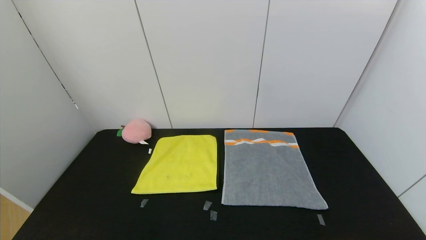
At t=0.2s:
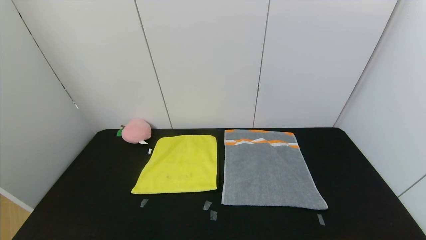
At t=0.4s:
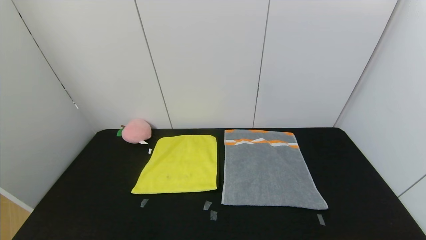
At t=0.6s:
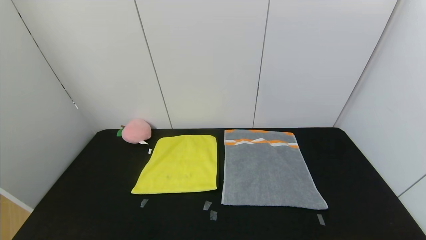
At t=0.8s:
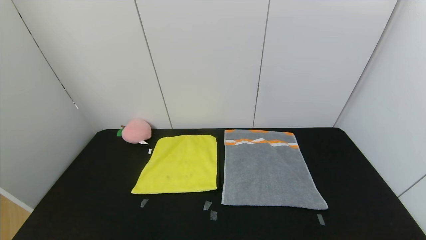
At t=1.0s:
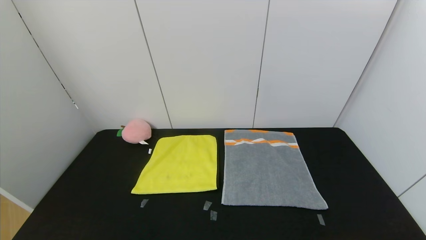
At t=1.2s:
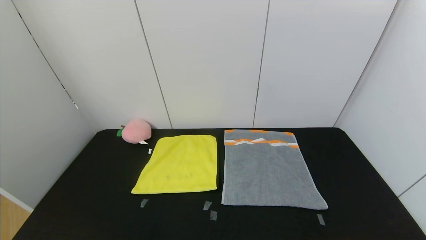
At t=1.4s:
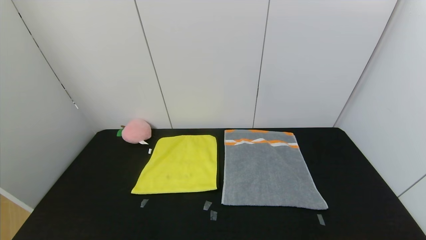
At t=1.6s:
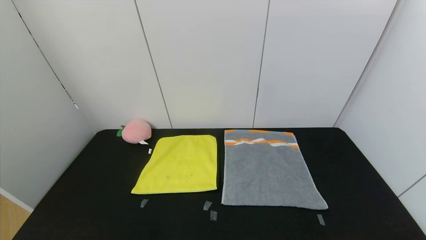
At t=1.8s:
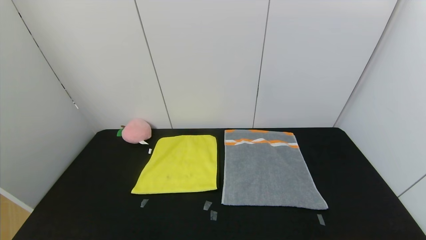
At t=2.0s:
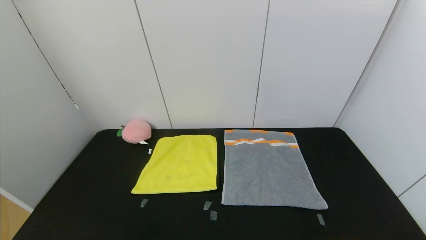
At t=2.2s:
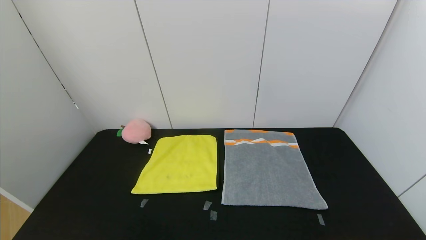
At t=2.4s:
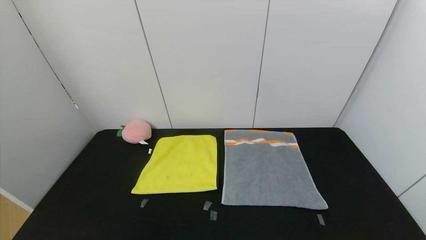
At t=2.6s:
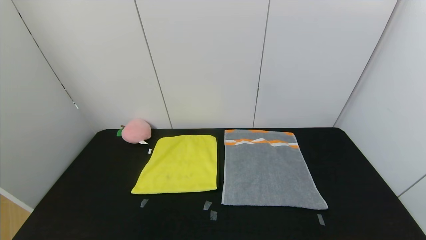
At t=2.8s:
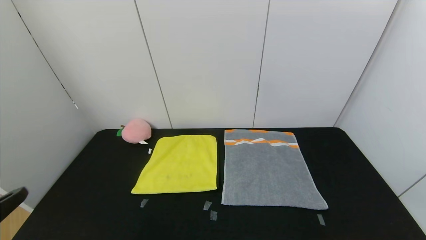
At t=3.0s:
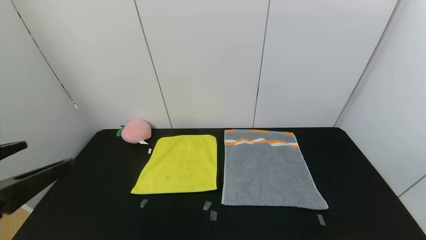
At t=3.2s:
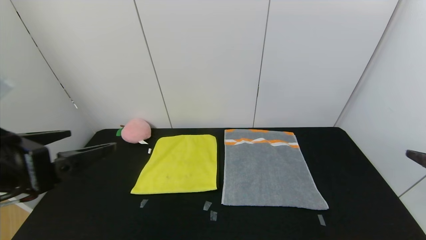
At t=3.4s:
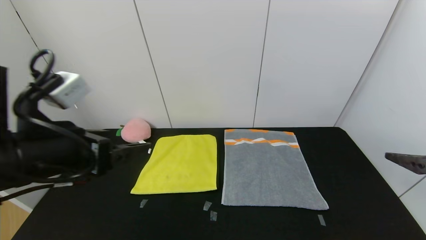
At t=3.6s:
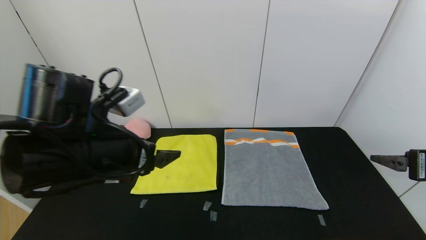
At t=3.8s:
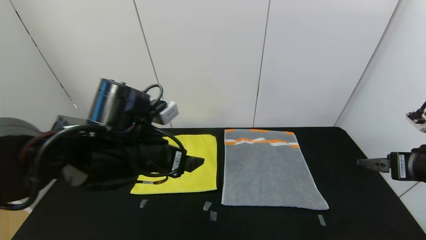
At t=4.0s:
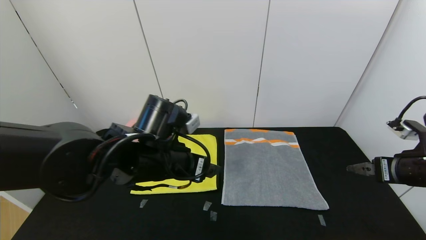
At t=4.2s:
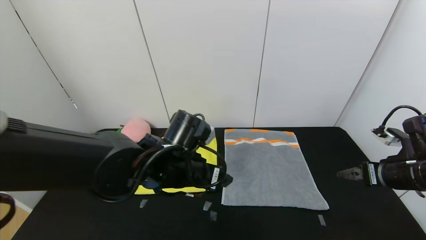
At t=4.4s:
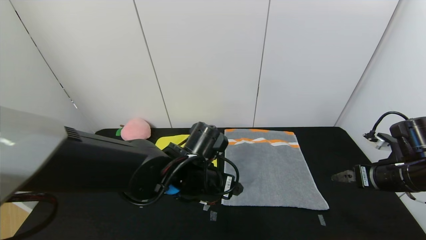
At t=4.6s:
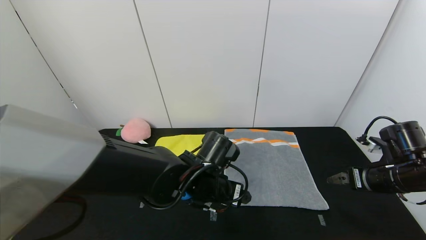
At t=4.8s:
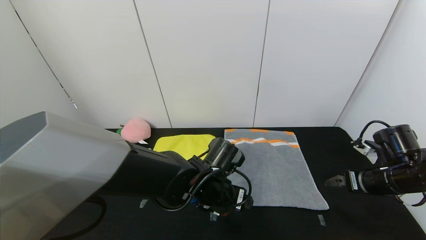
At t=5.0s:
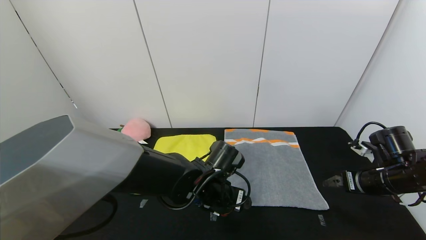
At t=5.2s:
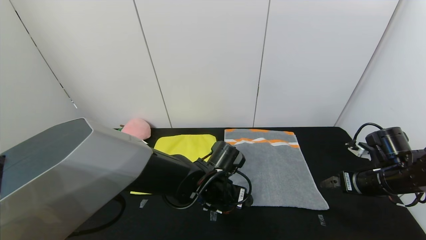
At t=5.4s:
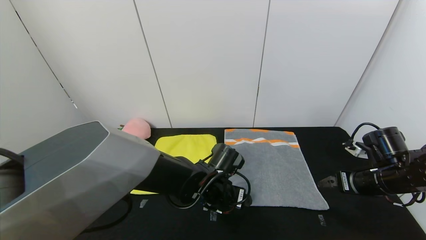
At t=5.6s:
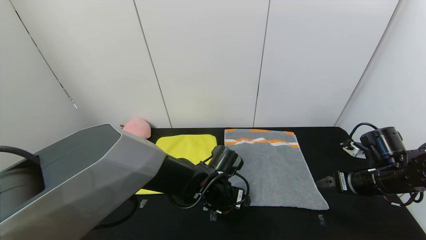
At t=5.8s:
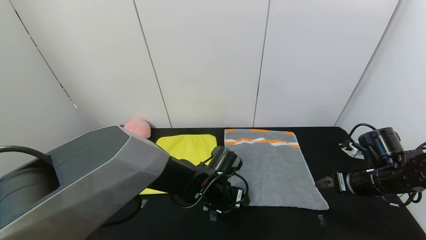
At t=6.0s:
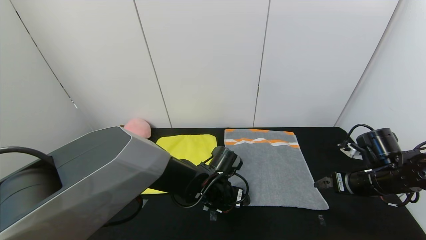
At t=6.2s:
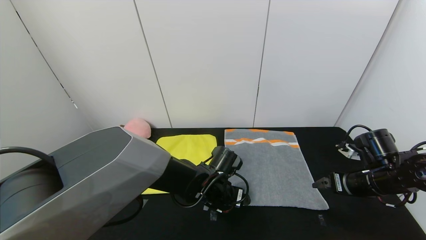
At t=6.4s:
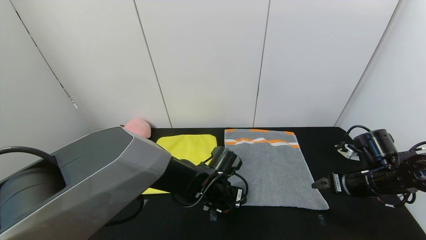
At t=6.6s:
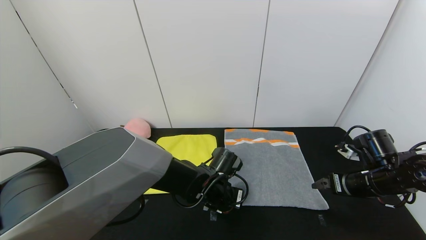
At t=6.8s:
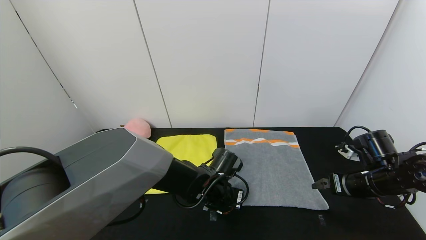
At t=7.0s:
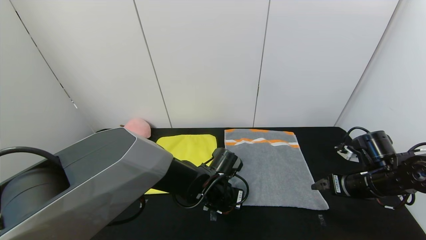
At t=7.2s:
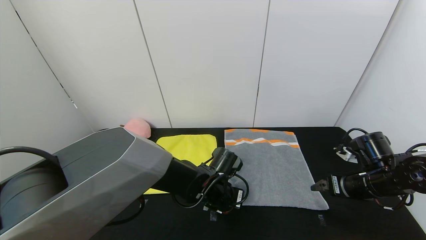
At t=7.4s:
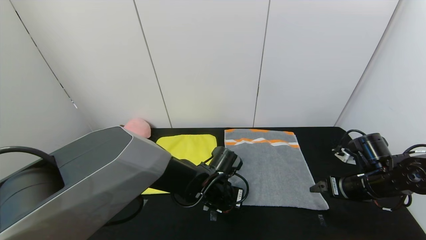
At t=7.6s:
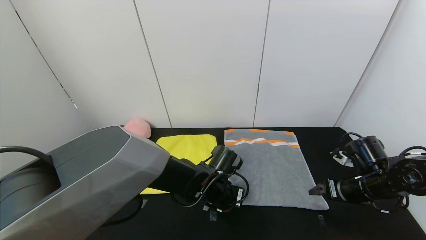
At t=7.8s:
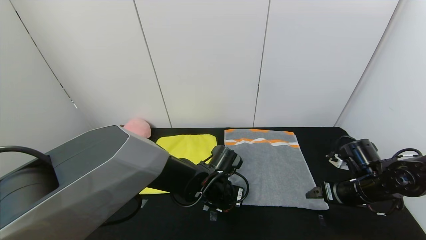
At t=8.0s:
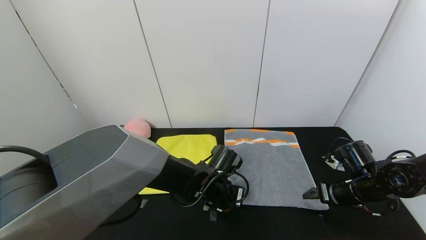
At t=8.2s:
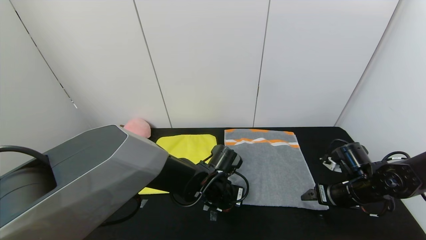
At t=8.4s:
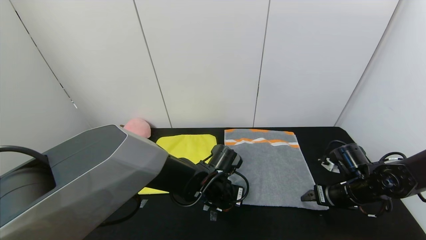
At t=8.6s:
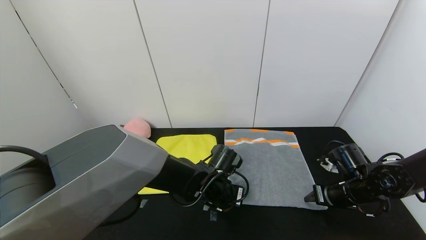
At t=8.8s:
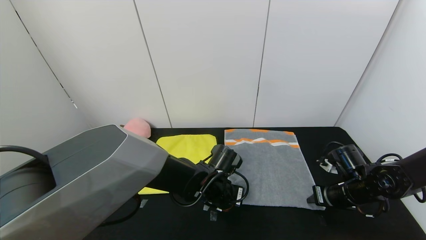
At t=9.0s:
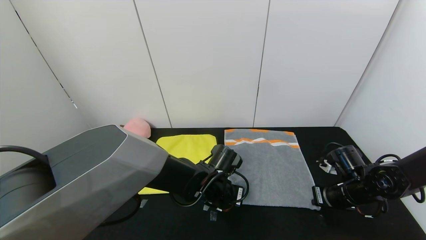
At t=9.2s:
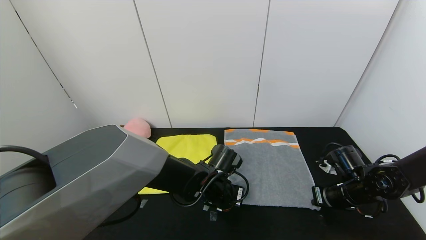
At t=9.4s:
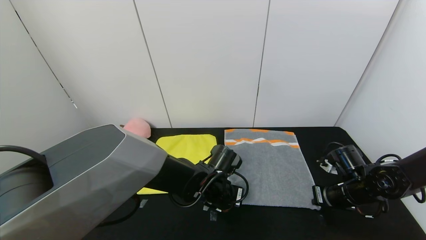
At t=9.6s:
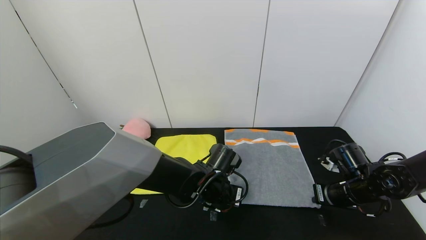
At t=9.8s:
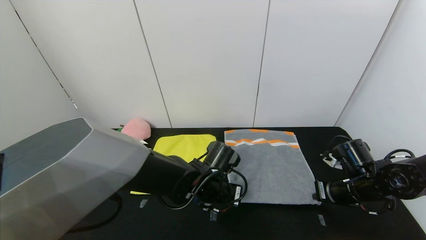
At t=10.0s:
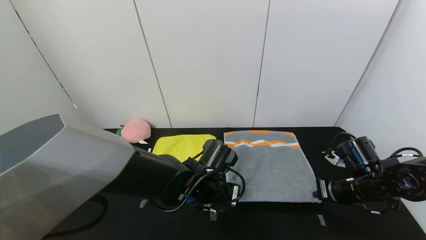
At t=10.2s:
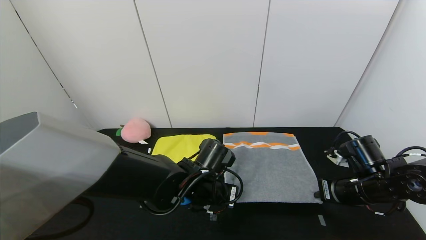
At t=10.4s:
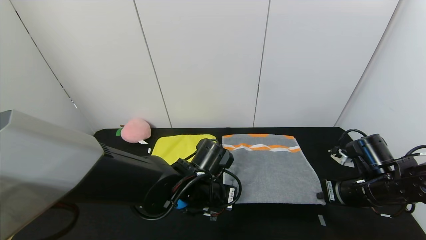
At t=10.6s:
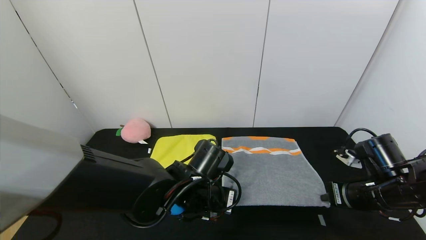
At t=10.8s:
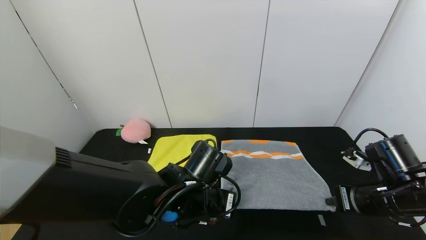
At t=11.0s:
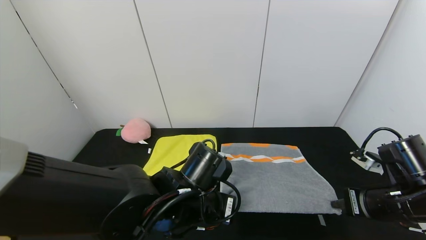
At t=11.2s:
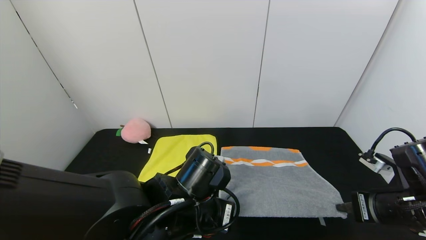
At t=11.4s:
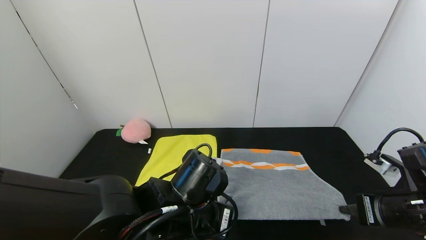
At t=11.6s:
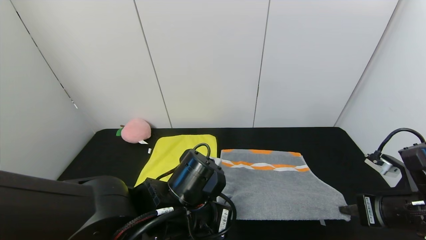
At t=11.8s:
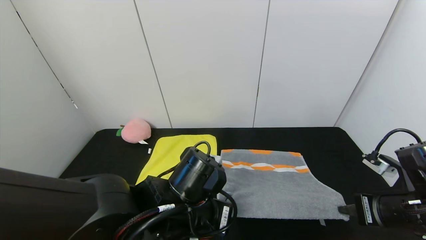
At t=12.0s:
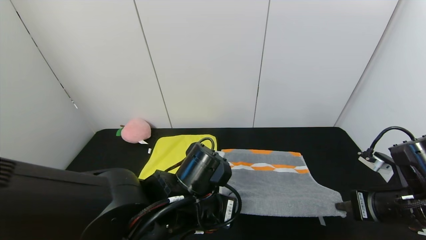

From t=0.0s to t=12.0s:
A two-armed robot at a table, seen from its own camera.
Task of the whole recording: Use the gripper to fold the yellow towel and grey towel in half twice,then put the yellow towel on the grey towel.
From t=0.0s to t=1.6s: Both grippers stay put.
From t=1.6s to t=3.0s: The left gripper travels upward and forward by some 20 cm.
From t=3.0s to t=4.4s: The right gripper is displaced forward and downward by roughly 20 cm, while the left gripper moves to the right, forward and downward, approximately 30 cm.
From t=4.4s to t=6.0s: The left gripper moves downward, approximately 10 cm. Meanwhile the right gripper ends up approximately 5 cm from where it was.
From t=6.0s to t=7.6s: The left gripper closes up.
From t=7.6s to t=9.0s: The right gripper closes up.
From t=9.0s to t=10.4s: The left gripper heads upward and backward, covering approximately 5 cm. The right gripper is displaced upward by about 5 cm.
From t=10.4s to t=12.0s: Both grippers move backward, roughly 5 cm.

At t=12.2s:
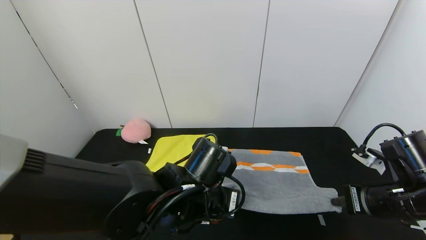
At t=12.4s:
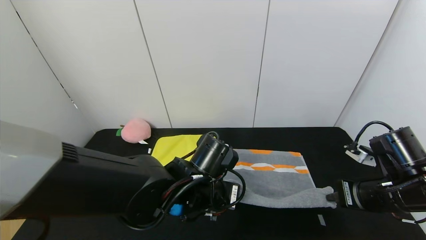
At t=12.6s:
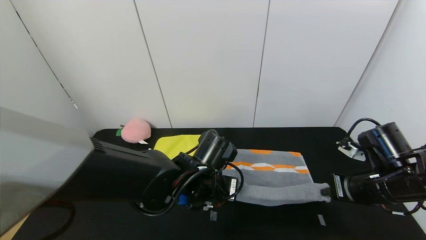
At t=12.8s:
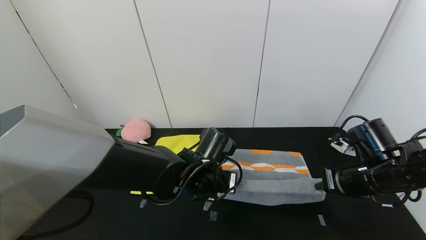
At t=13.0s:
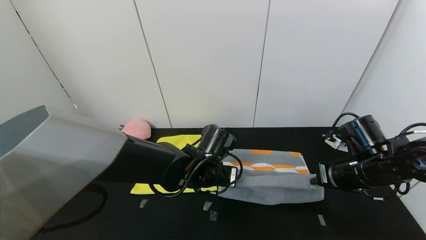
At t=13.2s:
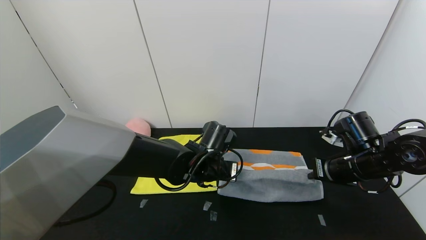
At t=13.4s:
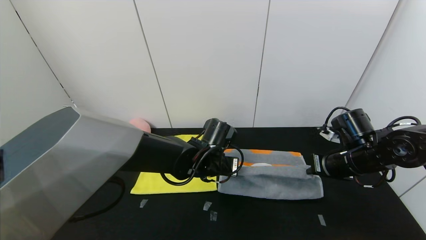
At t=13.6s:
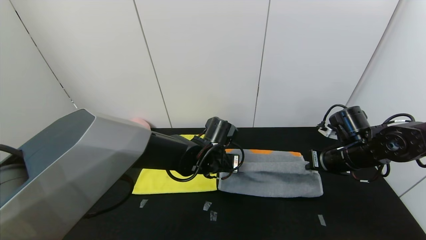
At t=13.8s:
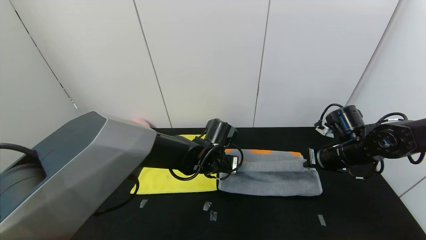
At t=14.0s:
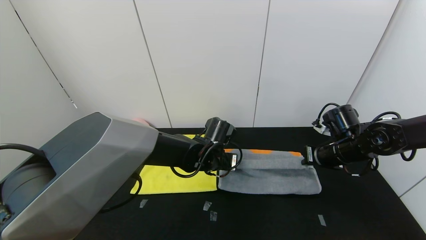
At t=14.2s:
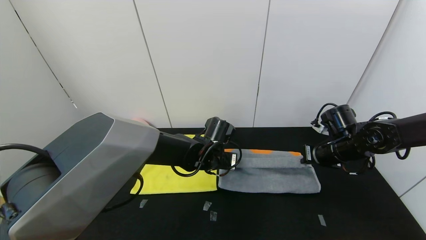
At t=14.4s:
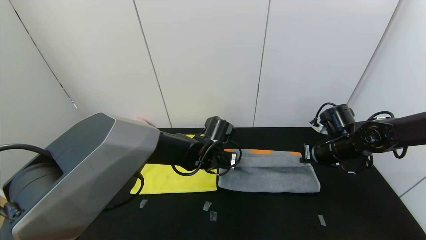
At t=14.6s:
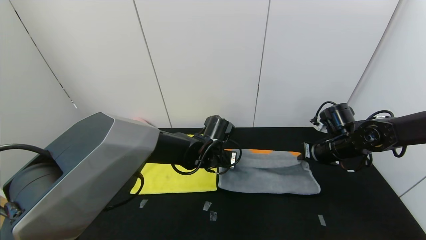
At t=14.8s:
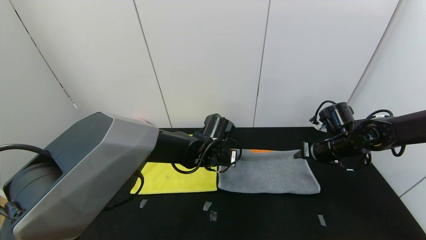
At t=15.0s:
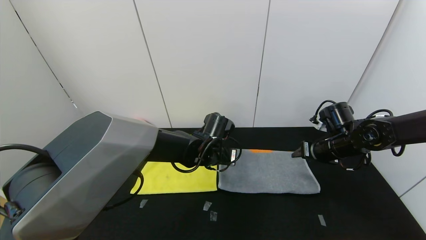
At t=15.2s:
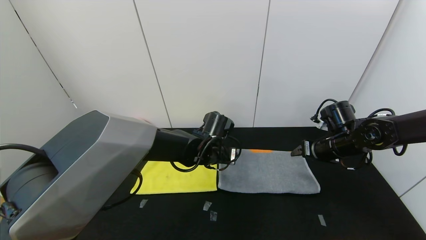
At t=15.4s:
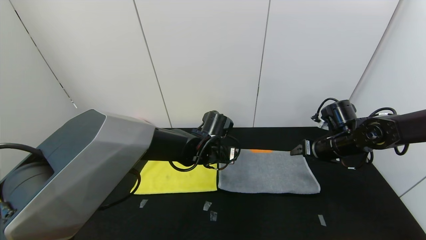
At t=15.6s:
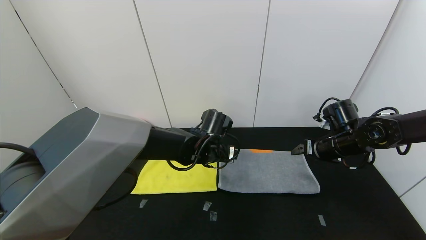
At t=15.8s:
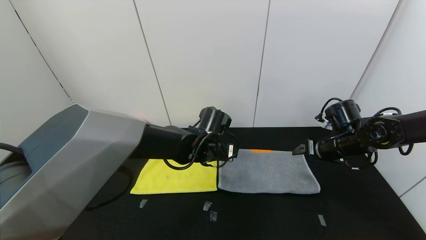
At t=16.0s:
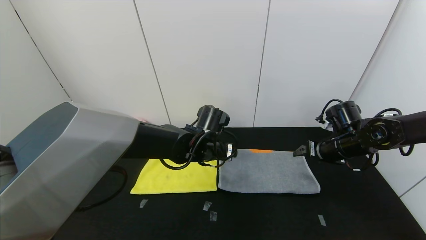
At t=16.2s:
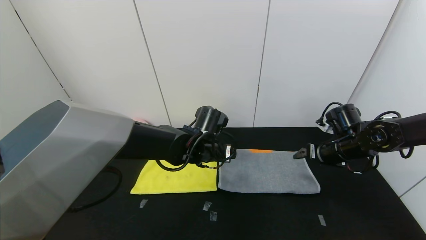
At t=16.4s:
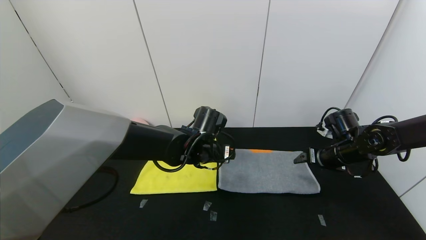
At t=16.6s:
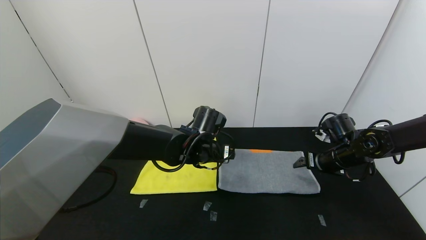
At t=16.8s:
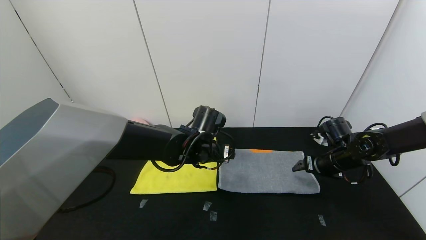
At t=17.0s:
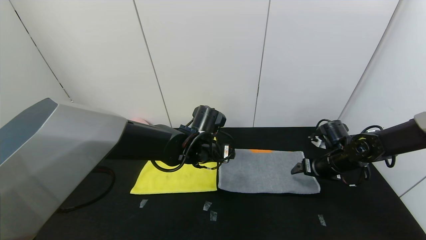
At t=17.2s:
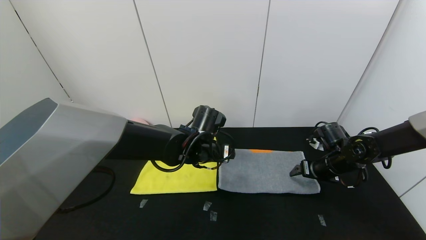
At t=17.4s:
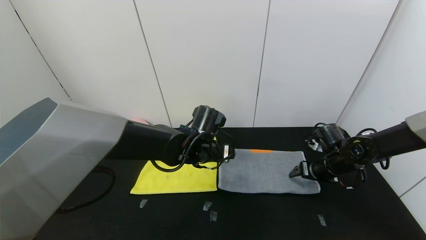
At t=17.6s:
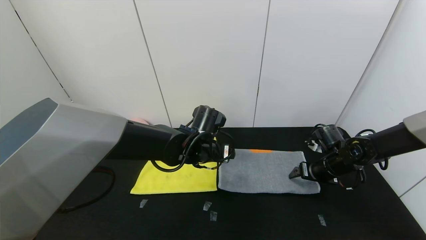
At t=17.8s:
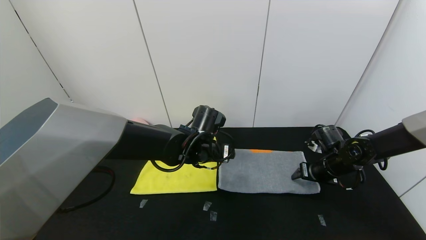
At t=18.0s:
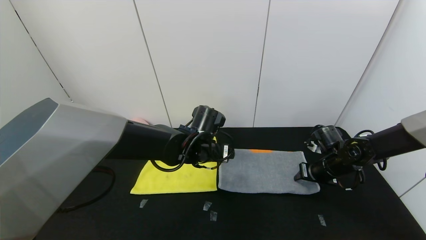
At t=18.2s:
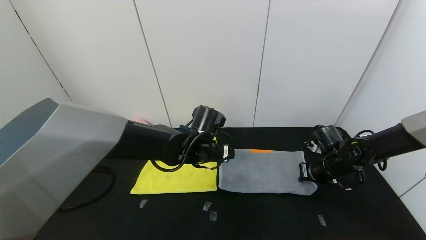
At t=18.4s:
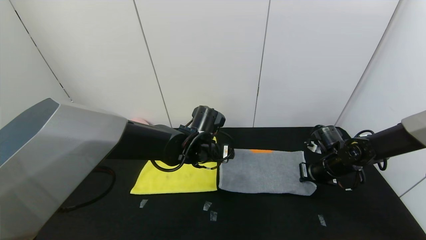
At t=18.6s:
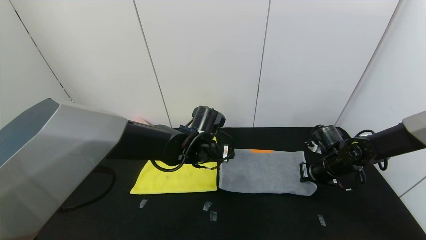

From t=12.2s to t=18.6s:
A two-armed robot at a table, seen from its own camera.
Task of the whole recording: Use the gripper to fold the yellow towel and grey towel in half twice,then put the yellow towel on the grey towel.
Step, from t=12.2s to t=15.4s: Fold the gray towel upwards with the left gripper.
From t=12.2s to t=13.8s: The two grippers go roughly 15 cm forward.
From t=13.8s to t=15.4s: The right gripper opens its fingers; the left gripper opens.
From t=15.4s to t=17.0s: The right gripper goes some 5 cm downward.
From t=17.0s to t=18.6s: The right gripper closes its fingers.
